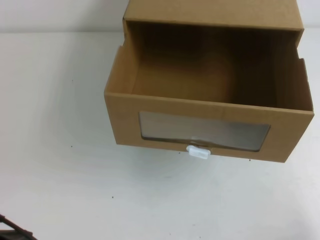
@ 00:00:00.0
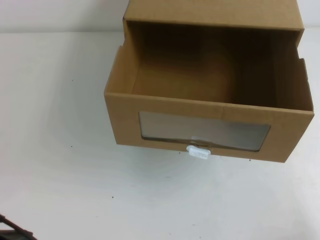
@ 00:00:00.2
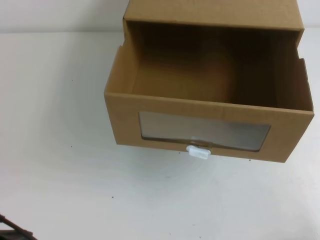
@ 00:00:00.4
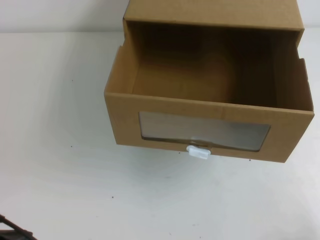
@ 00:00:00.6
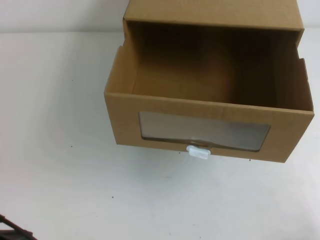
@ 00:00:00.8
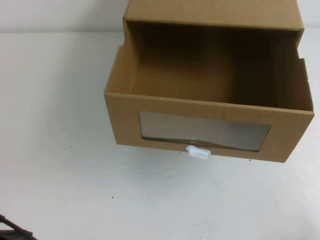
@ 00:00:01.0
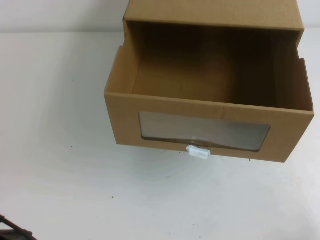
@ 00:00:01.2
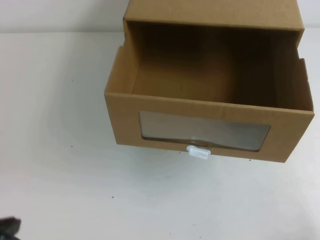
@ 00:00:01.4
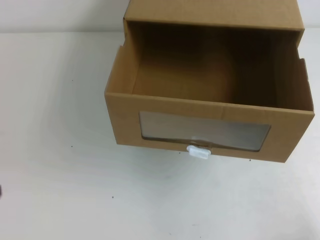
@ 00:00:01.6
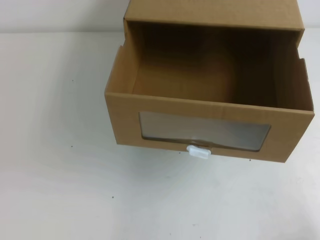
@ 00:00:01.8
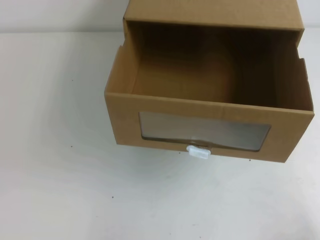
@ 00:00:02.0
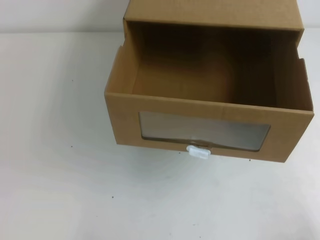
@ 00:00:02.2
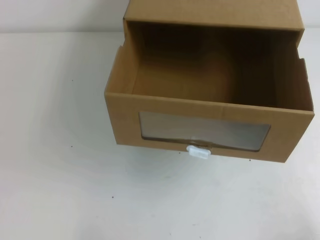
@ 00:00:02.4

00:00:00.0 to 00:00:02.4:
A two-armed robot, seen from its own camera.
Task of the whole recording: open the shoebox on the table.
00:00:01.2 to 00:00:02.4: The left gripper is displaced downward by some 10 cm.
